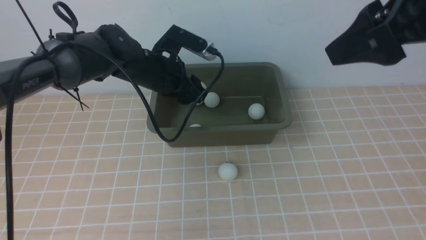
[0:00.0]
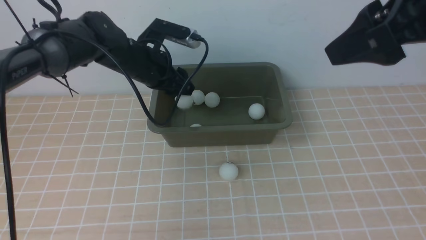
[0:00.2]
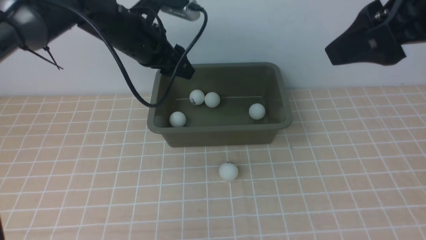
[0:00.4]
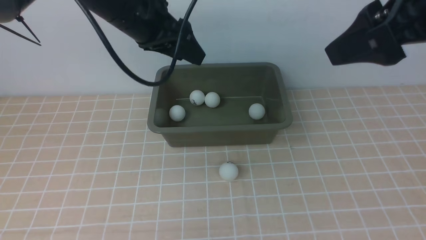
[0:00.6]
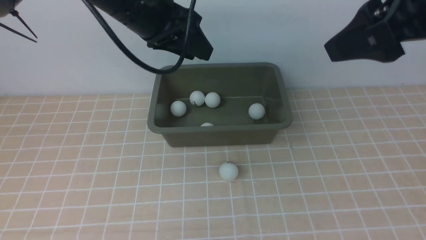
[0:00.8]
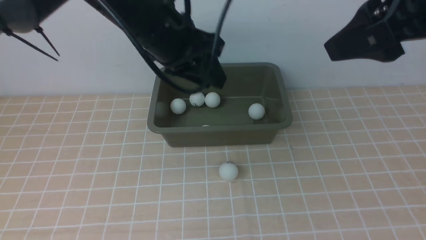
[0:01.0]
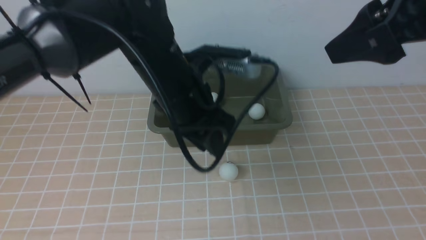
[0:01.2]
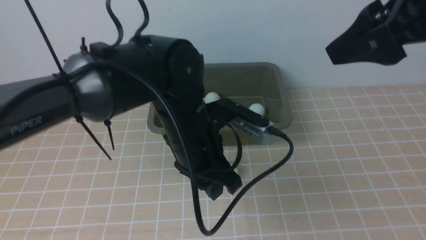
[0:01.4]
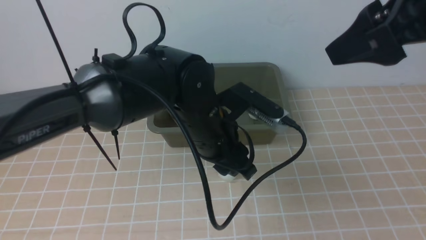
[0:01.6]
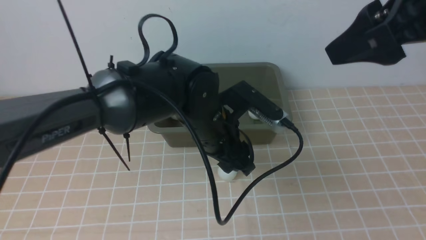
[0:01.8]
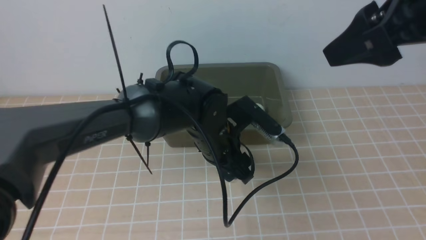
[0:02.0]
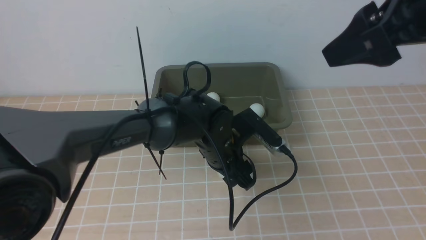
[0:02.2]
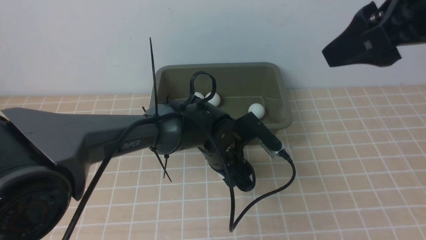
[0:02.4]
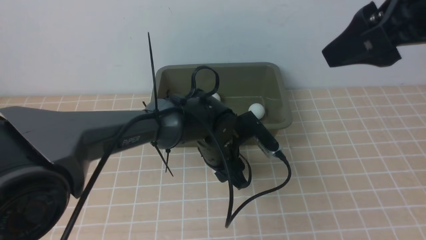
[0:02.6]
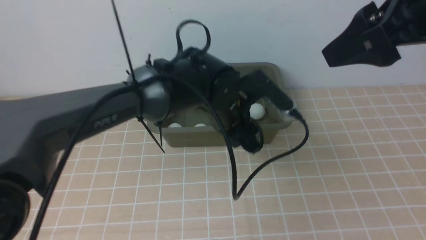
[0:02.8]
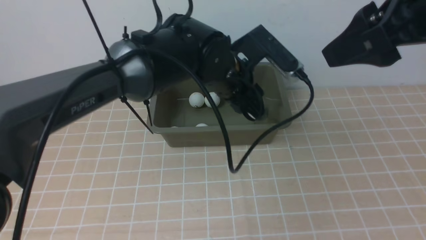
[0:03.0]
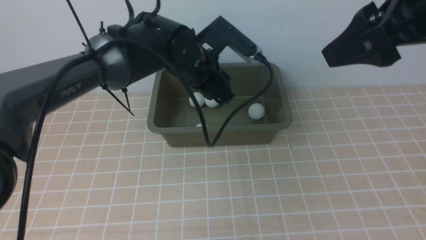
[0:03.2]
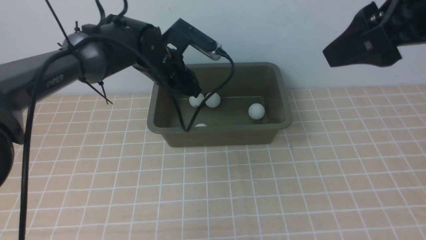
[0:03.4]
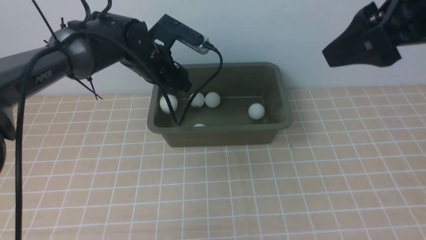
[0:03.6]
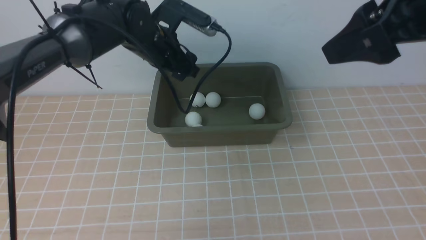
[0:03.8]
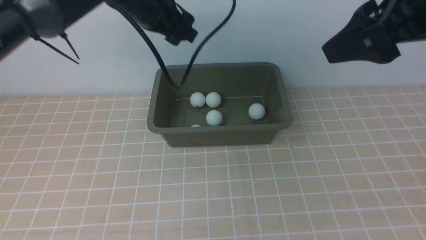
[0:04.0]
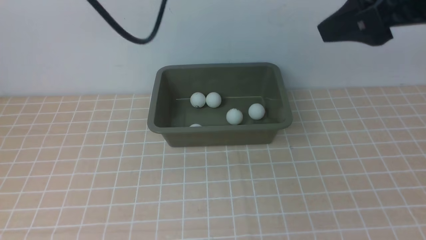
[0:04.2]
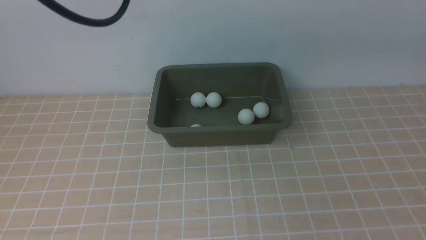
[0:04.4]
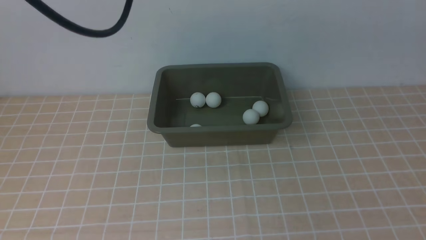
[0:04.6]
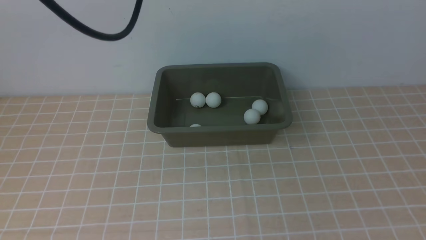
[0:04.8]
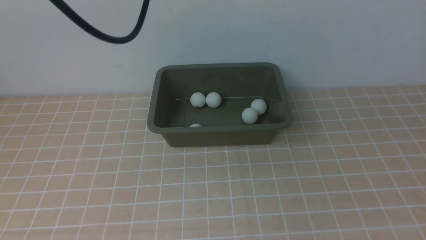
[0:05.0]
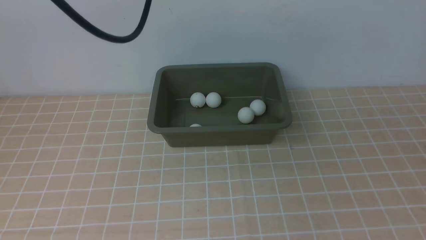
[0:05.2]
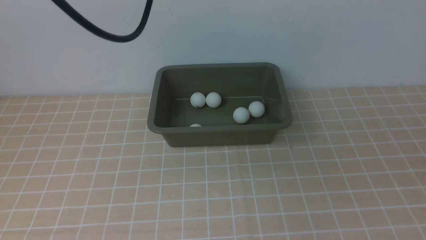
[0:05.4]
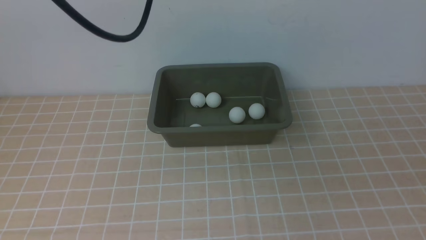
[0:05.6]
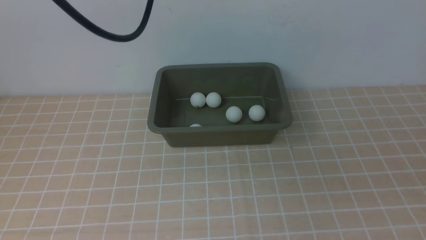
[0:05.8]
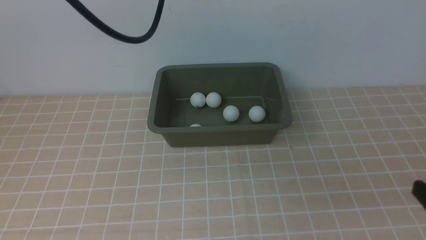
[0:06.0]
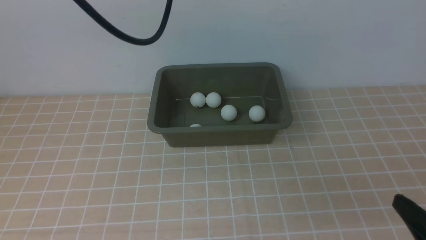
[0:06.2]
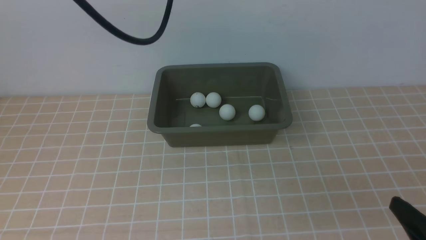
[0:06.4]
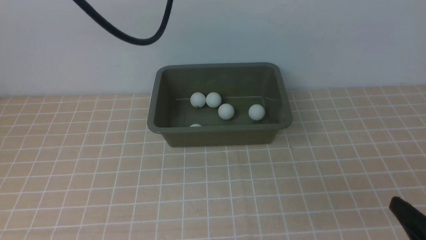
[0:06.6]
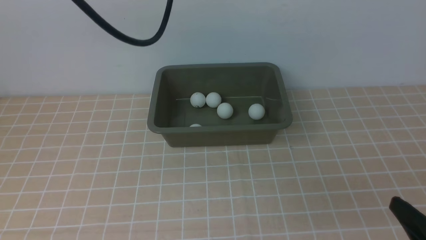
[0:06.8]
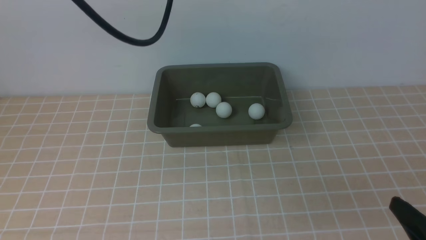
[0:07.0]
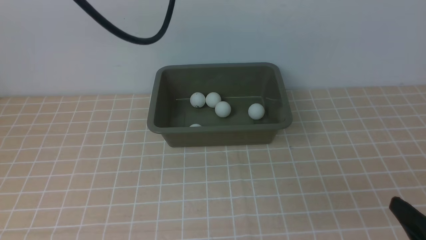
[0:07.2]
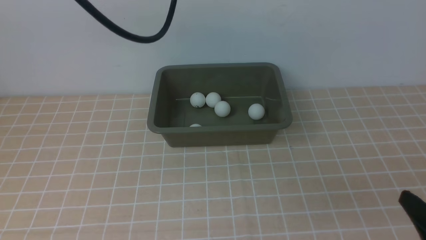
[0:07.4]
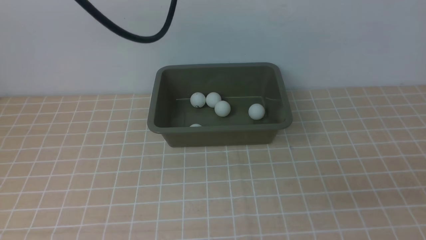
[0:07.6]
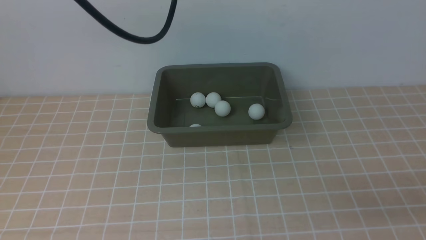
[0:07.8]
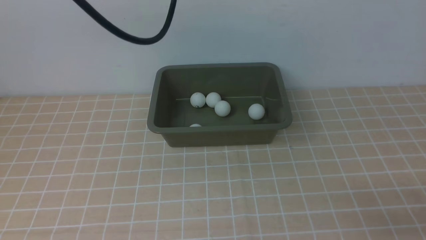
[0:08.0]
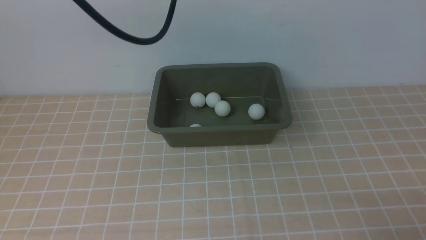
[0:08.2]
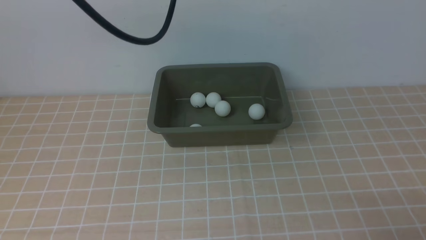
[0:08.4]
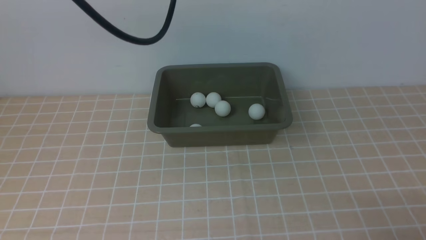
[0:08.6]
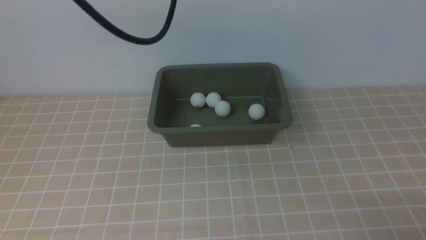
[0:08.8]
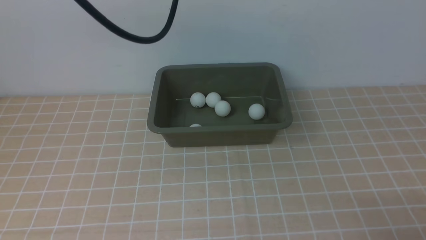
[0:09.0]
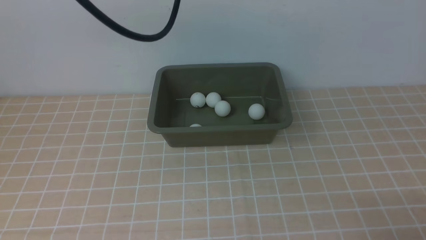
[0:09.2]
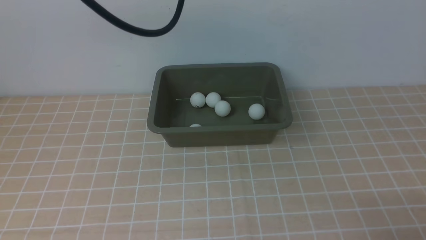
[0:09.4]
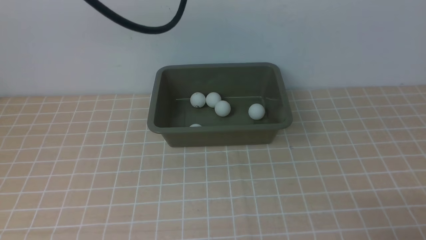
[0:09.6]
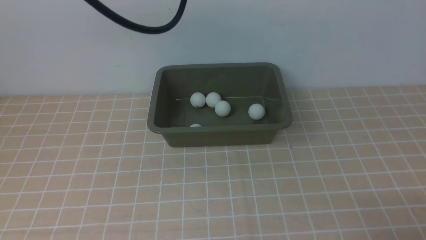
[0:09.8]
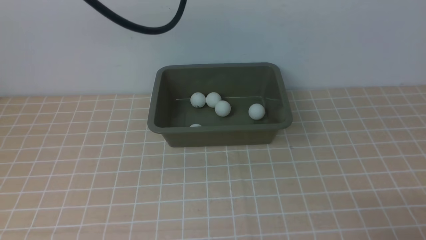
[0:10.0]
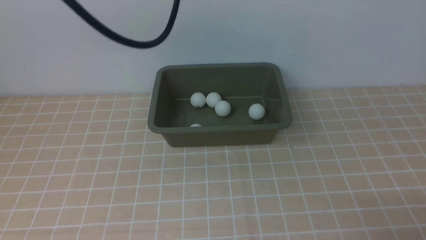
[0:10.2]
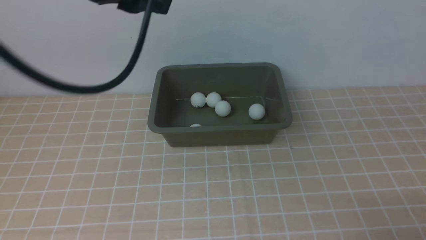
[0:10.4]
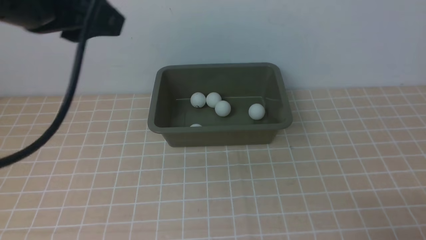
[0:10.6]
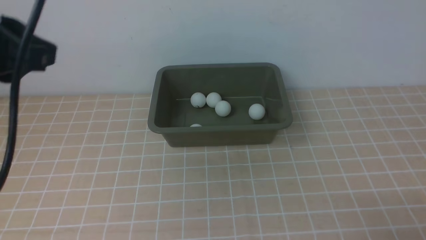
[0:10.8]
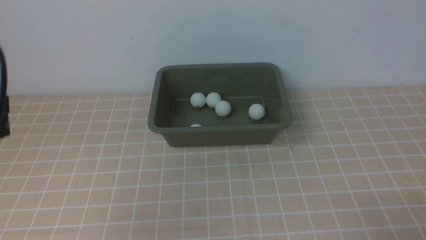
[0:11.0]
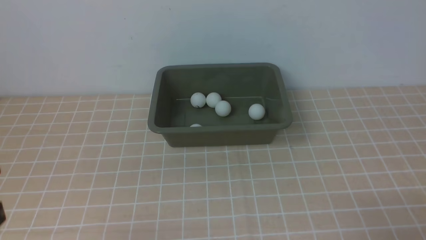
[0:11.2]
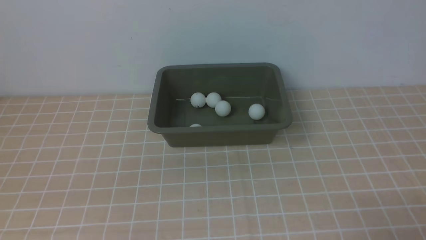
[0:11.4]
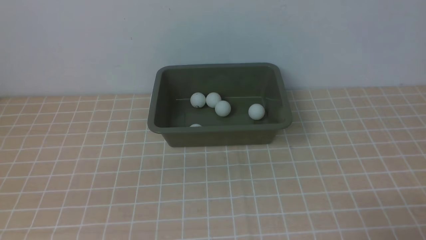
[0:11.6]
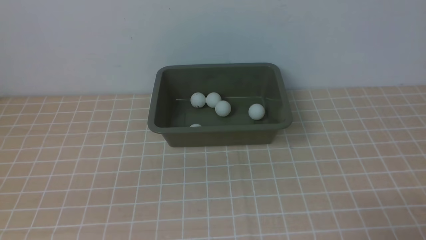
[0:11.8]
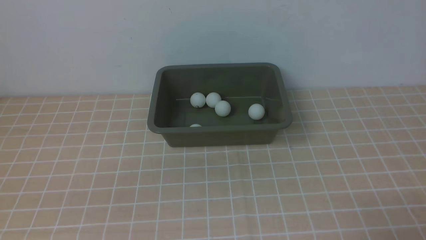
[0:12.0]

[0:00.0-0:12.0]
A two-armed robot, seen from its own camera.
Step, 0:00.0 to 0:00.4: use the left arm to put the table tennis ball into the box.
Step, 0:00.6 to 0:02.6: use the left arm to clamp the table tennis ball closest to it.
Step, 0:03.0 to 0:03.8: use the left arm to put the table tennis ball into the box.
0:00.0 to 0:01.6: The left gripper is displaced backward and to the right by about 15 cm.
0:01.6 to 0:03.0: The left gripper is displaced forward by approximately 10 cm, and goes downward and returns, about 10 cm each way.
0:03.0 to 0:04.4: The left gripper is displaced upward and to the left by some 25 cm. Meanwhile the right gripper shifts by approximately 5 cm.
0:04.4 to 0:06.0: The right gripper moves downward and backward, roughly 25 cm.
0:06.0 to 0:07.6: The right gripper changes place by about 5 cm.
0:09.0 to 0:10.4: The left gripper shifts approximately 5 cm backward.
0:10.4 to 0:12.0: The left gripper heads backward, downward and to the left, covering roughly 35 cm.

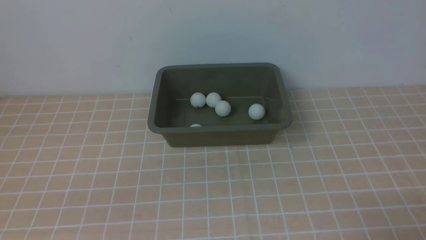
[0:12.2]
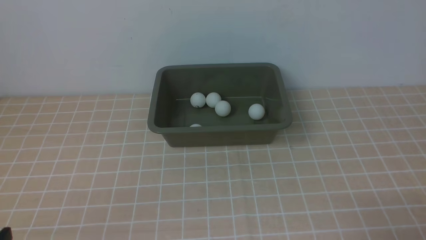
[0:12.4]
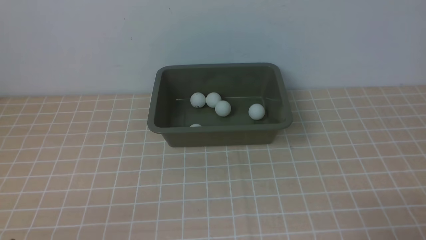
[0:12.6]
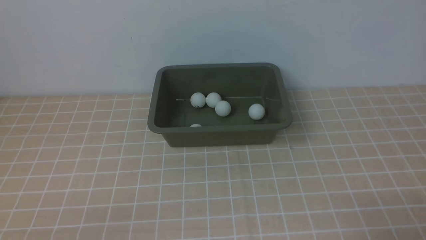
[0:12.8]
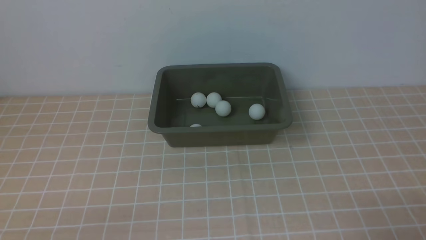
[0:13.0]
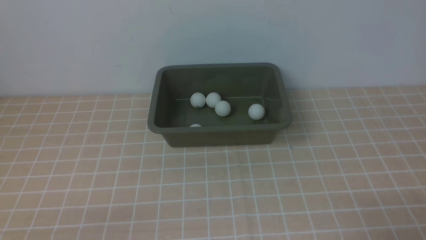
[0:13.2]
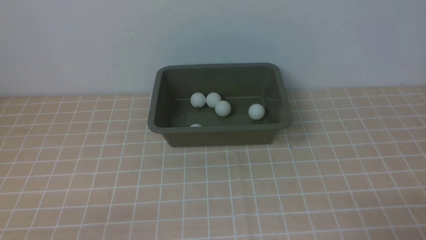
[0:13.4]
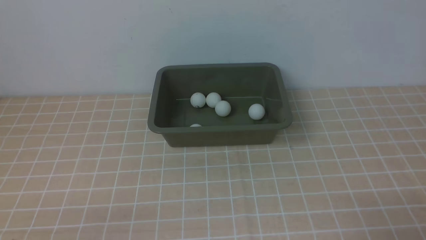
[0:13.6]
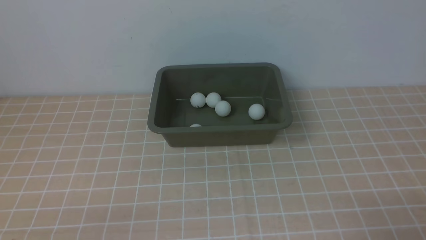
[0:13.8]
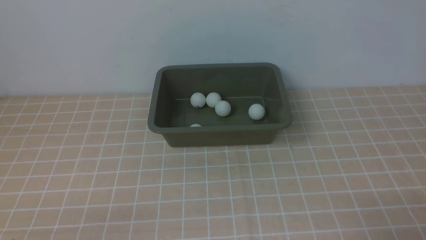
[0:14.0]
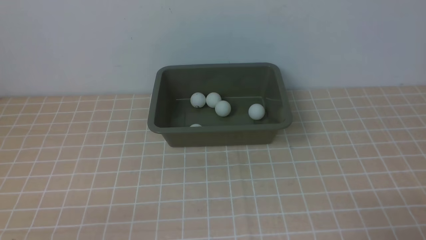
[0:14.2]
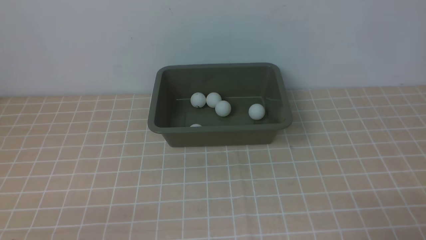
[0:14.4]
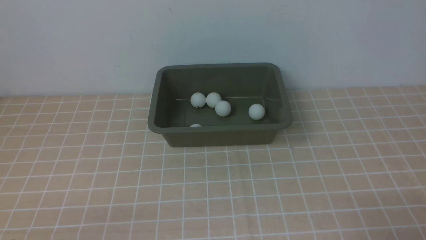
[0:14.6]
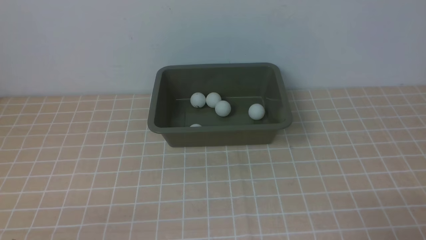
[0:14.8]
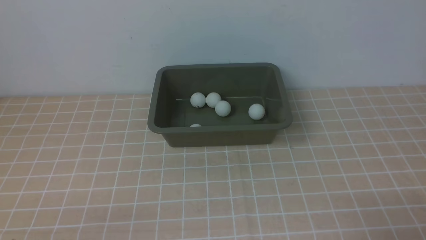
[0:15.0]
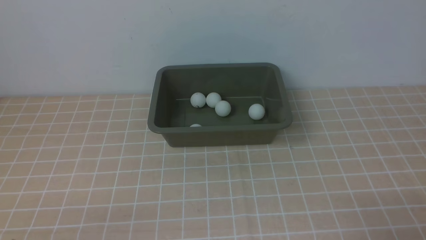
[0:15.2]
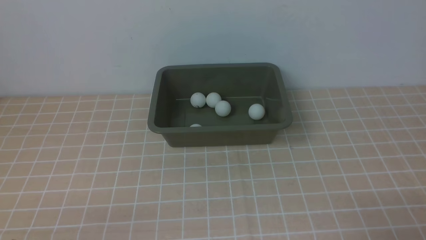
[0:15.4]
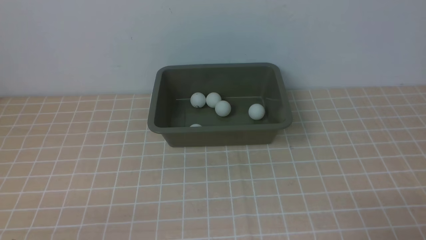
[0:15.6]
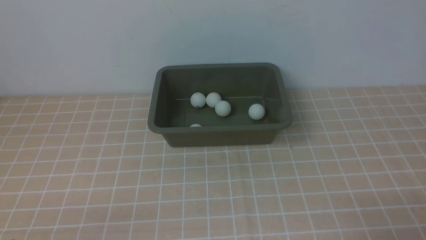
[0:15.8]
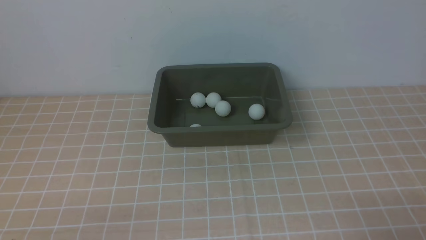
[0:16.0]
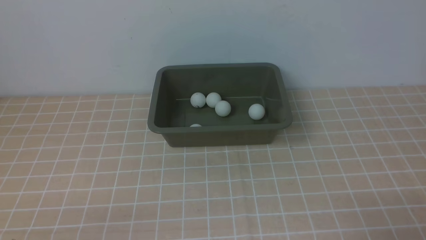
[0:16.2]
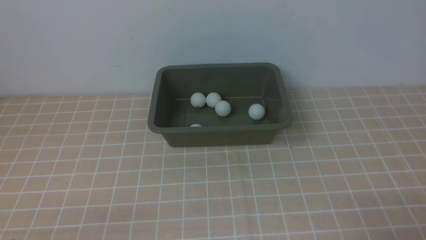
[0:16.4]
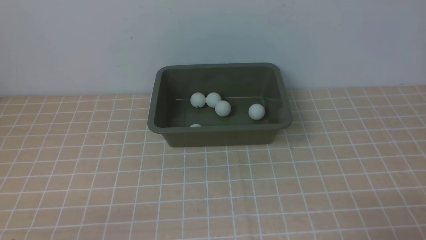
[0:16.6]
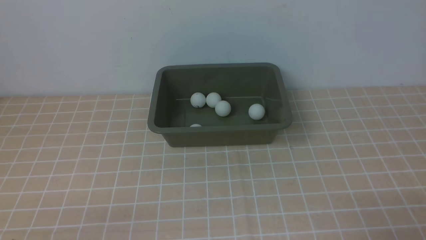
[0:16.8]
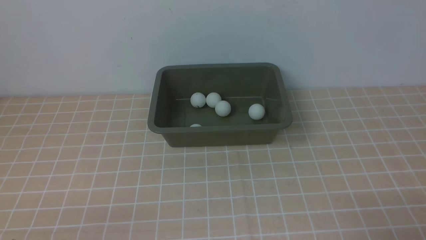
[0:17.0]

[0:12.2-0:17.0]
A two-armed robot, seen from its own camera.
0:13.8 to 0:17.0: The two grippers keep their place.
